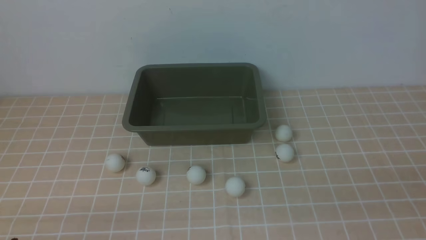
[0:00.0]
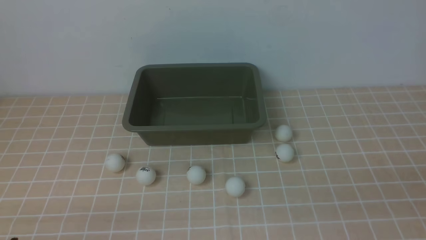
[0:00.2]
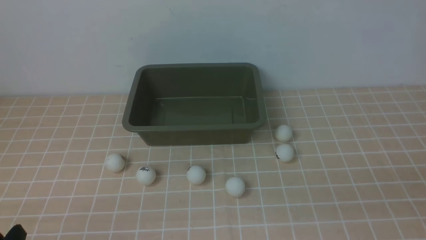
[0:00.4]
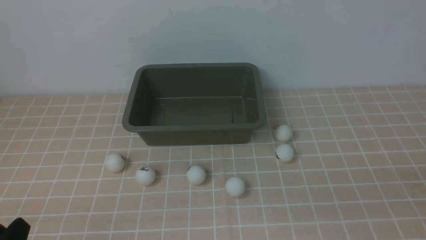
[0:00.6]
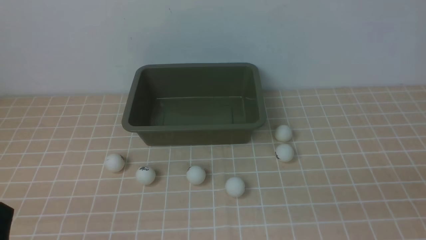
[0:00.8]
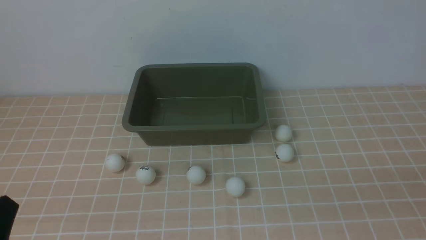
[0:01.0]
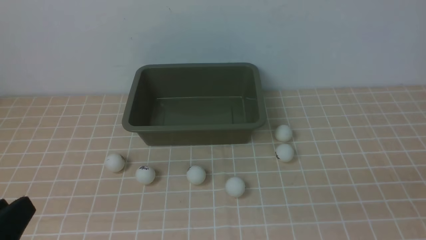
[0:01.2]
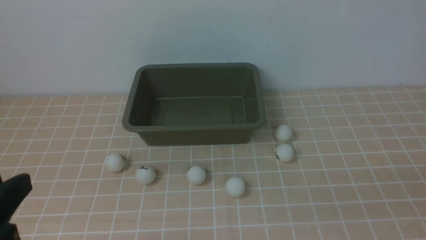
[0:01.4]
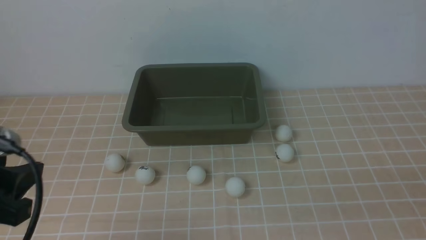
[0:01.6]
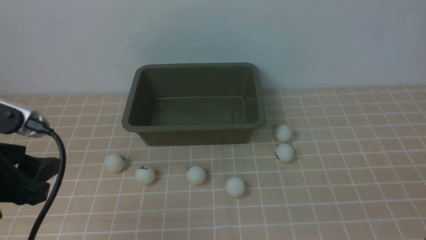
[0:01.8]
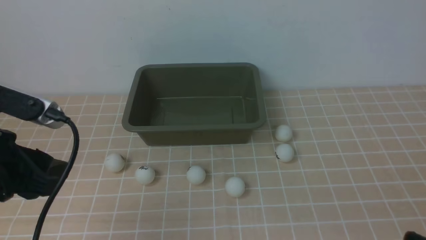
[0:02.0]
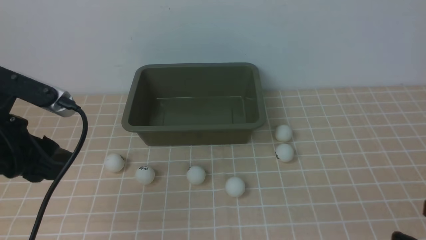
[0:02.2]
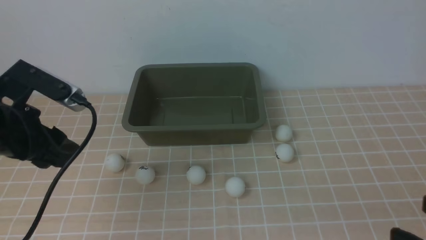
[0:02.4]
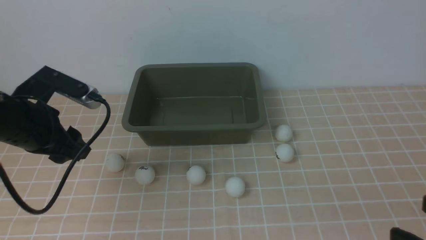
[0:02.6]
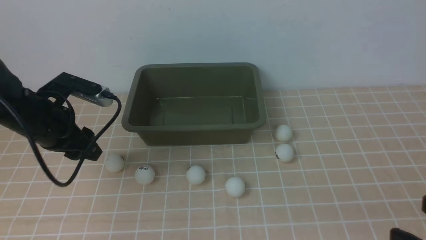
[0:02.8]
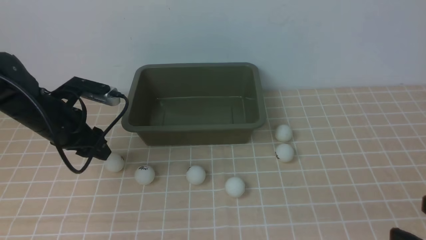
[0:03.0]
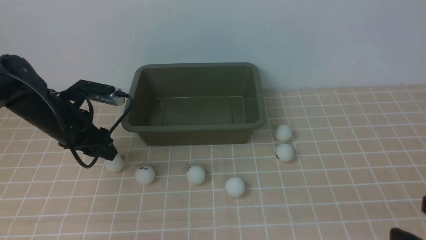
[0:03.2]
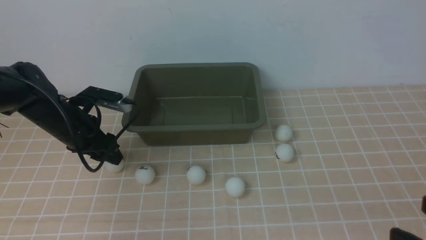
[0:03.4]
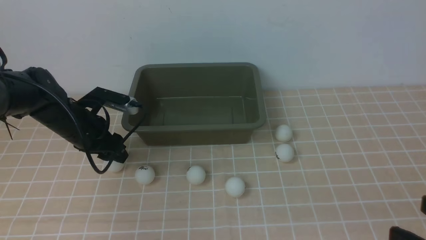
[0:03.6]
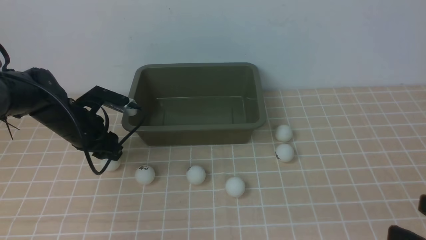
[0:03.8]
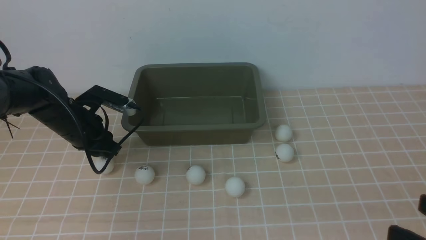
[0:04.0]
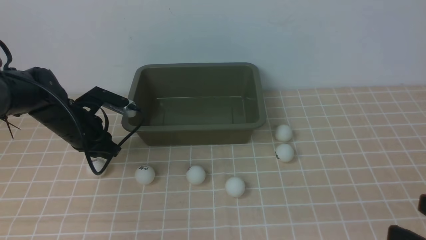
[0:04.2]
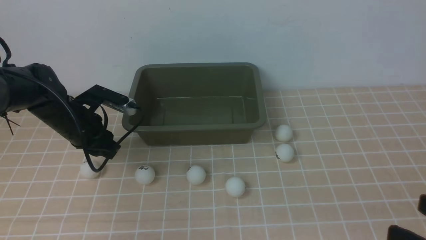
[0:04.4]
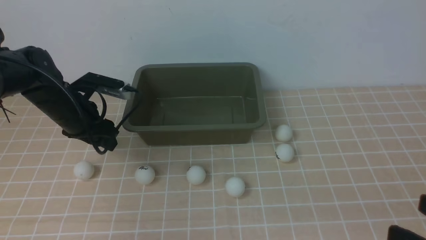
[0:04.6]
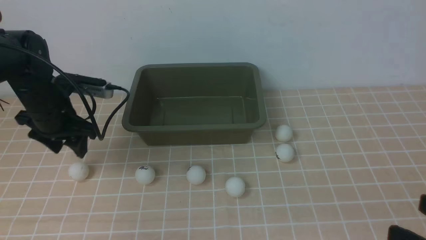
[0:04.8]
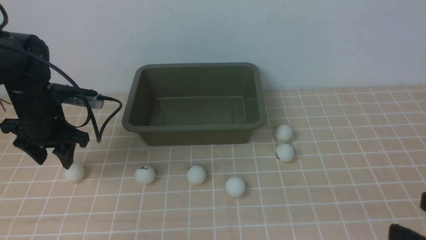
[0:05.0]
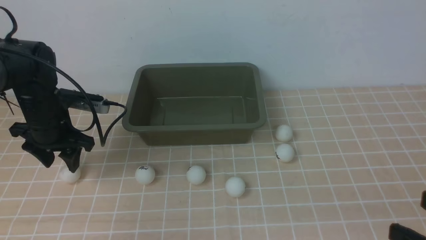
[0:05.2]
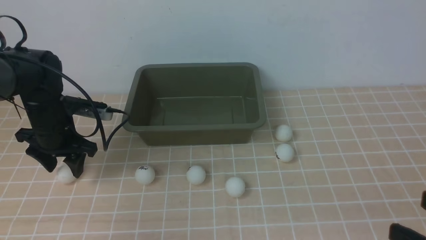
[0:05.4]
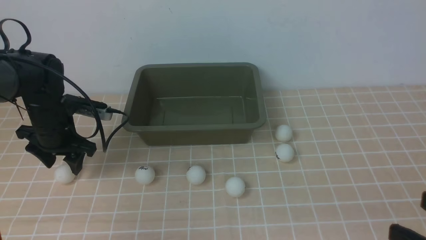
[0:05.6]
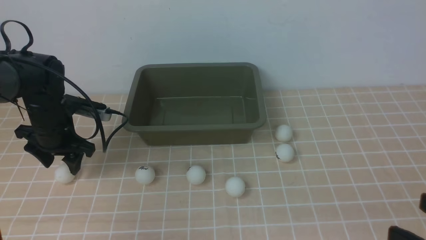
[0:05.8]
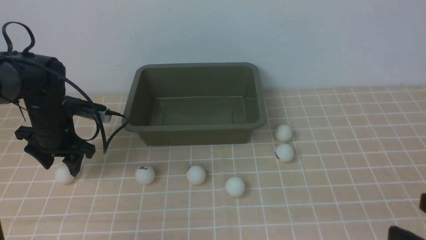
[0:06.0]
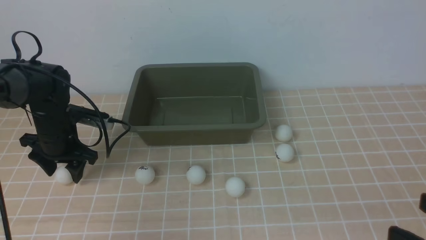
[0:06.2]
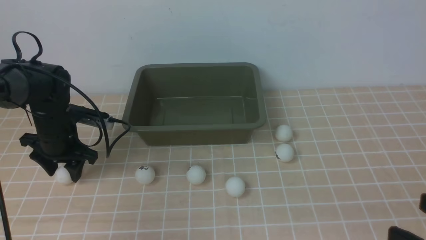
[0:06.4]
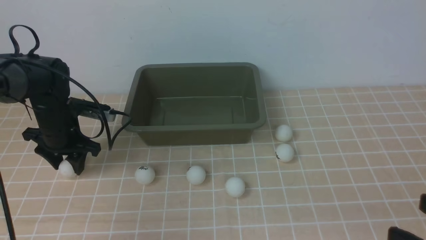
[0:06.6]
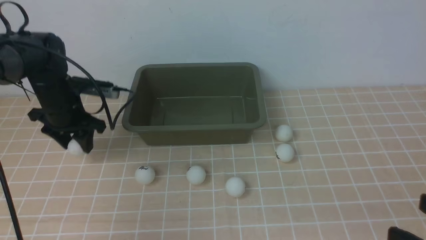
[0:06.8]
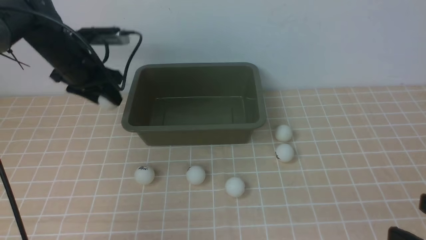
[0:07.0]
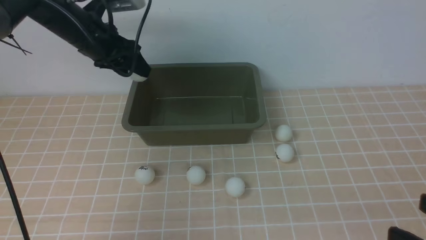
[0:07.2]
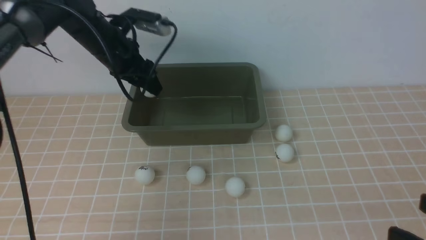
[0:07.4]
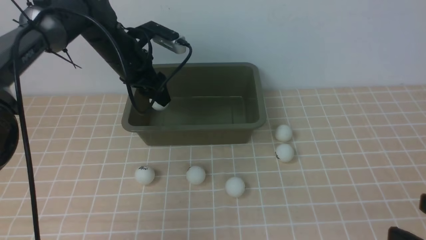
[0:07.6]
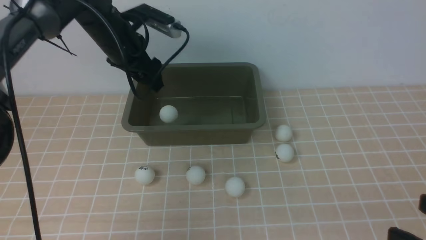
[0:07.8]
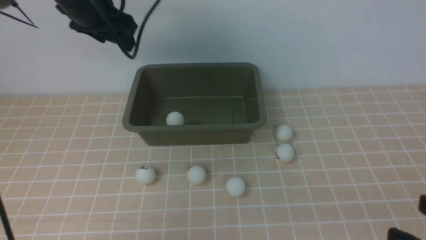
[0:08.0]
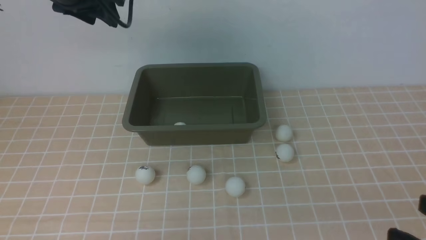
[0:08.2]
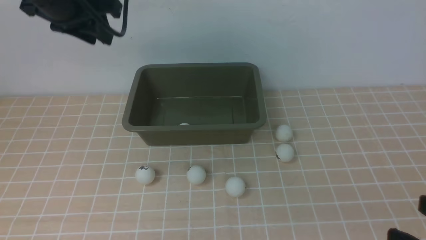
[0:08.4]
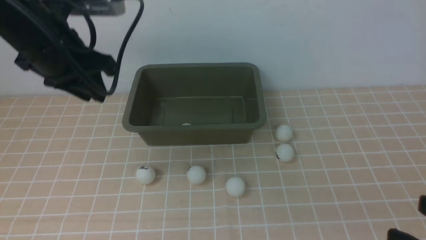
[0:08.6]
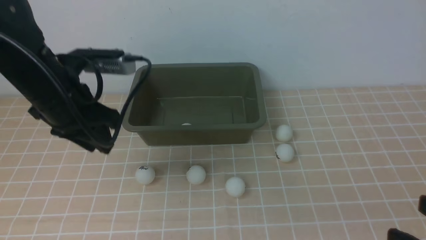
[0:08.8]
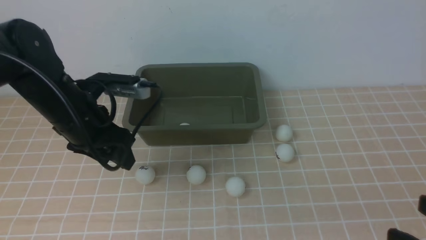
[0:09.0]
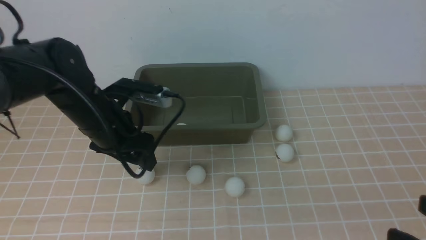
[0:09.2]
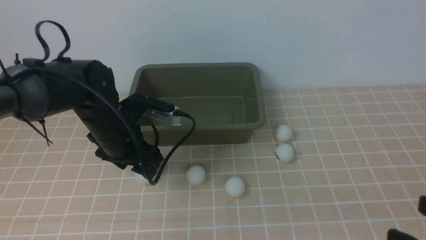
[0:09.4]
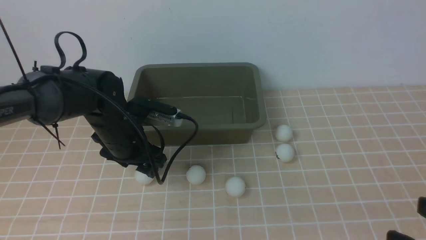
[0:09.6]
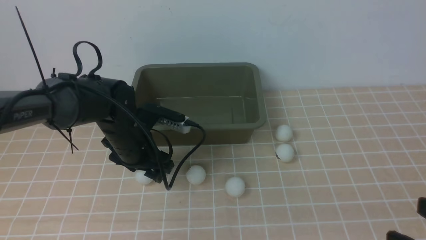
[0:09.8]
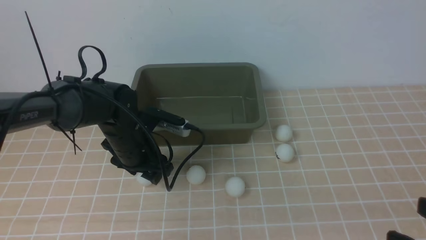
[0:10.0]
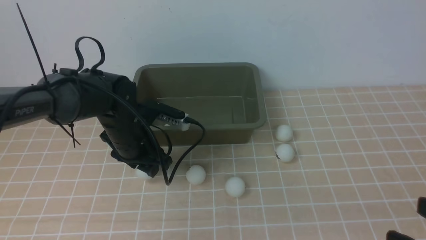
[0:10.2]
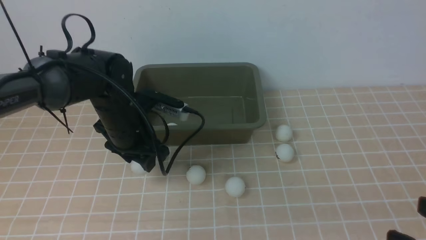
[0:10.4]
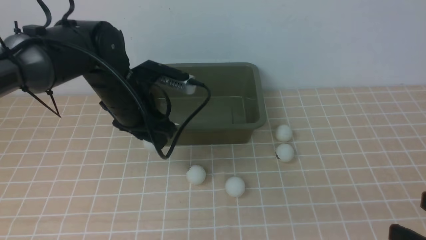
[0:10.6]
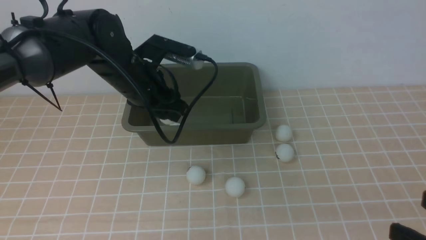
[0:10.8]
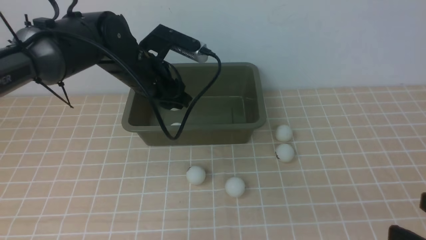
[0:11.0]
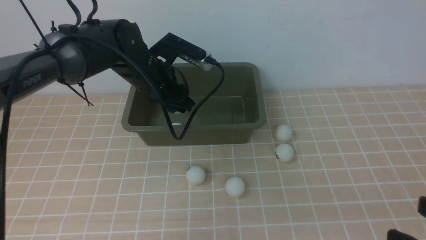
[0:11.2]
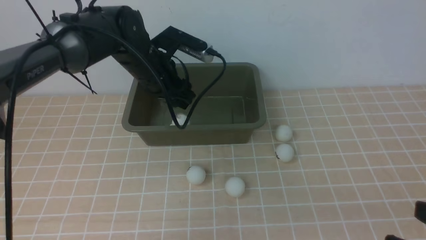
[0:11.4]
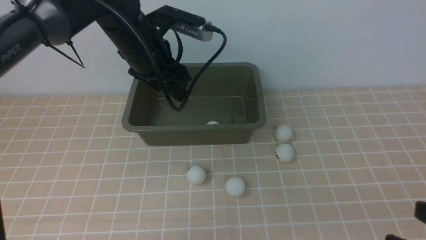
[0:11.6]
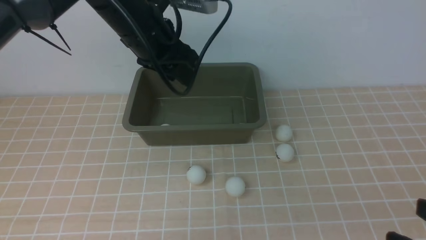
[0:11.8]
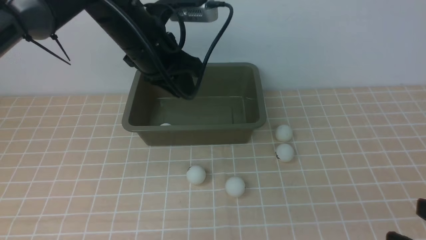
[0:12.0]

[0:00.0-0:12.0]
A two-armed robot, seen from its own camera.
Step, 0:00.0 to 0:06.8: use the left arm to clamp the table tennis ball closest to it.
Step, 0:07.0 to 0:07.8: use the left arm to put the table tennis ball into the box.
Step, 0:08.2 to 0:10.4: use the left arm to clamp the table tennis ball closest to it.
Step, 0:10.6 to 0:11.6: use the left arm to put the table tennis ball into the box.
0:00.0 to 0:01.6: The left gripper shifts roughly 15 cm upward and forward.
0:01.6 to 0:03.0: The left gripper is displaced forward and downward by some 25 cm.
0:03.0 to 0:04.4: The grippers stay close to where they were, moving slightly.
0:04.4 to 0:06.0: The left gripper opens.
0:06.0 to 0:07.6: The left gripper goes about 20 cm upward, to the right and forward.
0:07.6 to 0:09.0: The left gripper heads backward, covering roughly 15 cm, and closes, then reopens.
0:09.0 to 0:10.4: The left gripper ends up about 10 cm from where it was.
0:10.4 to 0:12.0: The left gripper heads upward, covering some 10 cm.

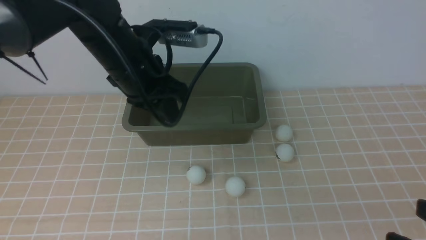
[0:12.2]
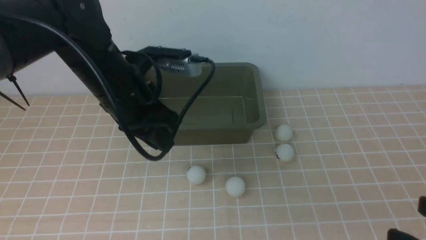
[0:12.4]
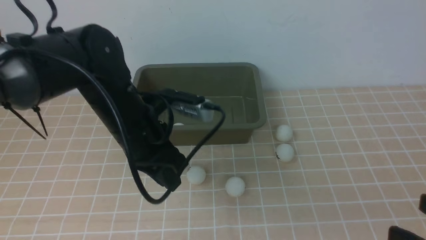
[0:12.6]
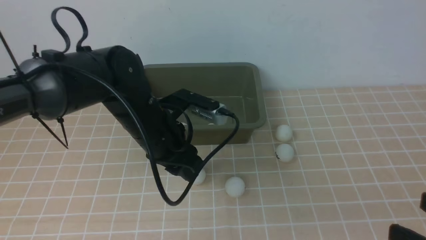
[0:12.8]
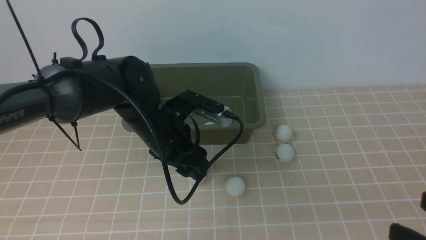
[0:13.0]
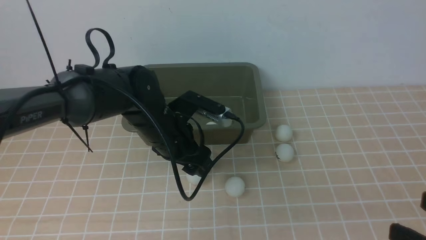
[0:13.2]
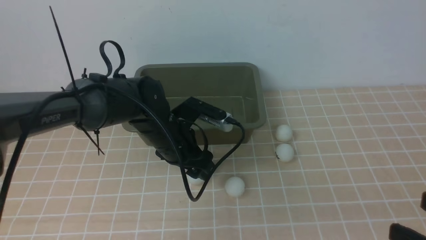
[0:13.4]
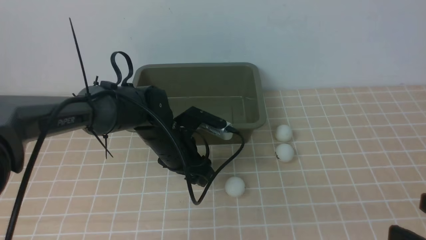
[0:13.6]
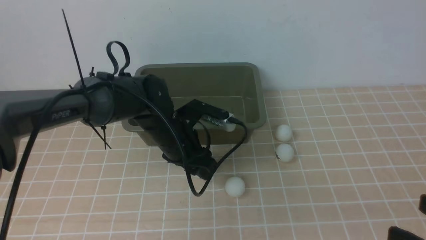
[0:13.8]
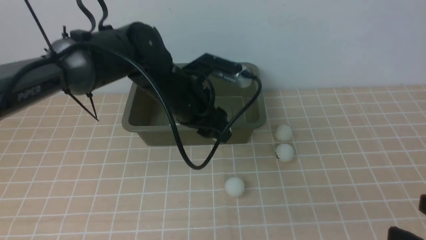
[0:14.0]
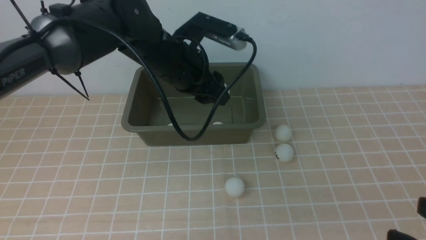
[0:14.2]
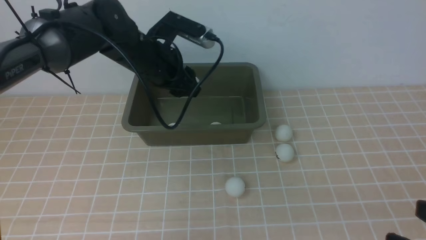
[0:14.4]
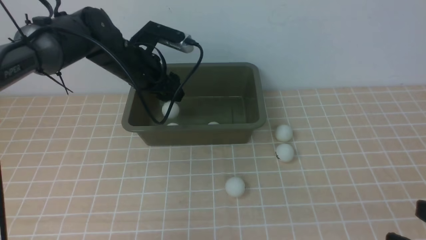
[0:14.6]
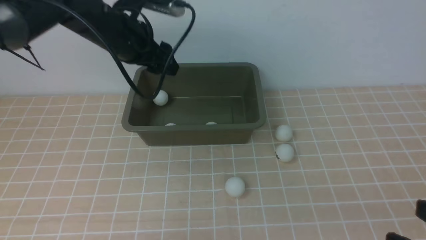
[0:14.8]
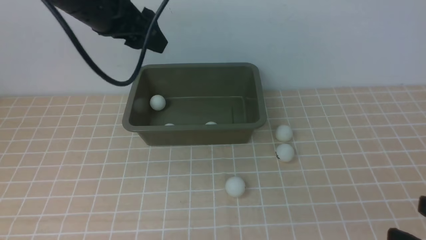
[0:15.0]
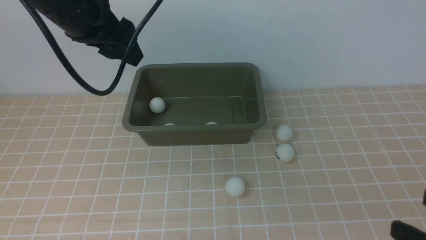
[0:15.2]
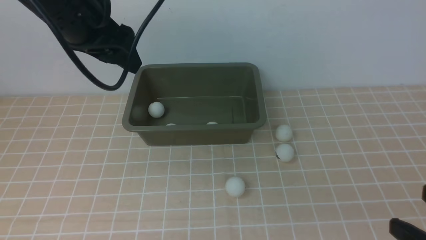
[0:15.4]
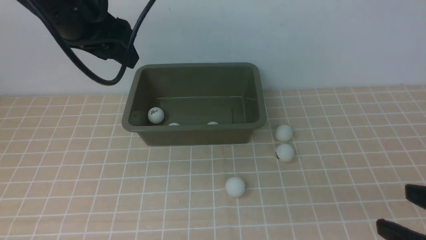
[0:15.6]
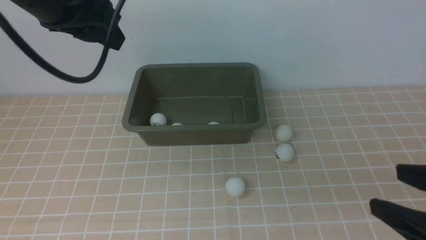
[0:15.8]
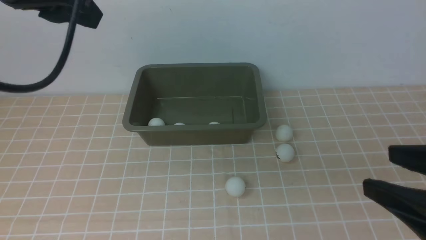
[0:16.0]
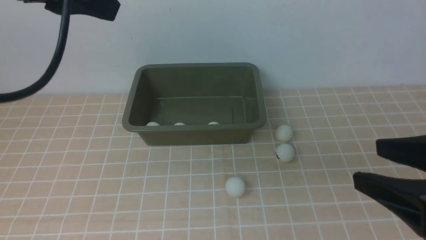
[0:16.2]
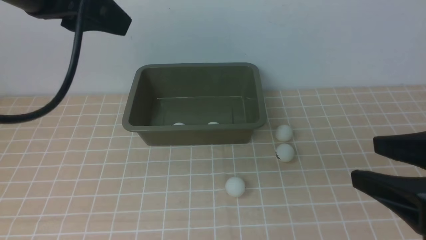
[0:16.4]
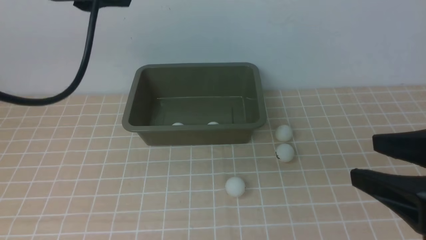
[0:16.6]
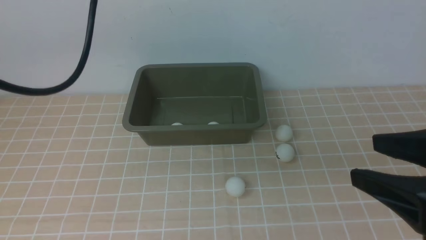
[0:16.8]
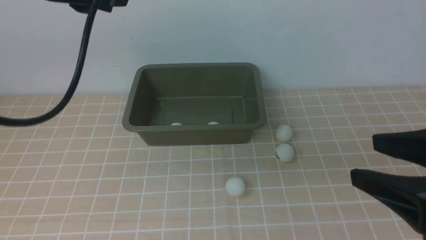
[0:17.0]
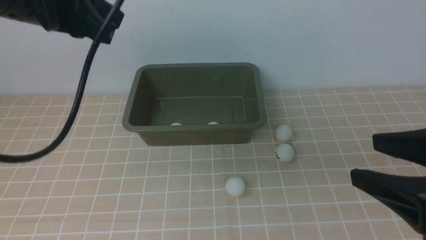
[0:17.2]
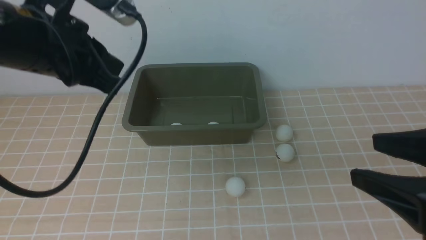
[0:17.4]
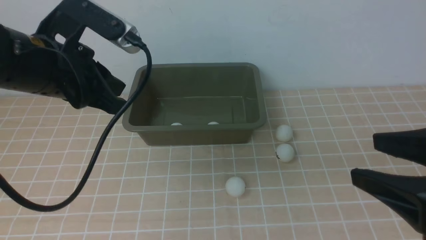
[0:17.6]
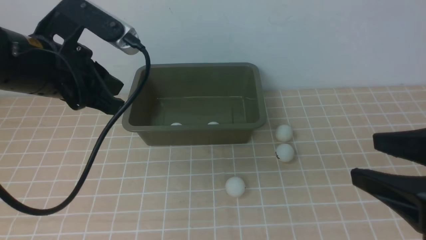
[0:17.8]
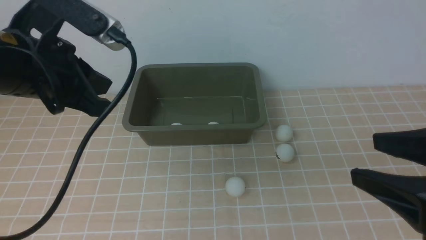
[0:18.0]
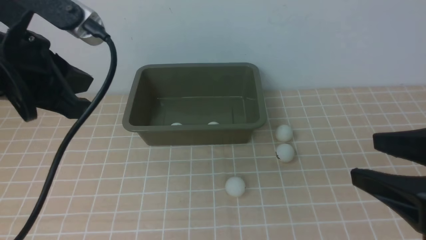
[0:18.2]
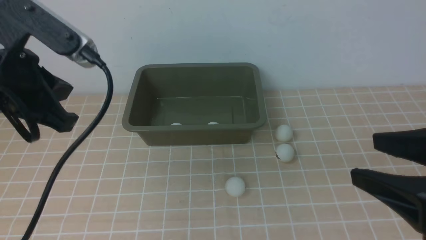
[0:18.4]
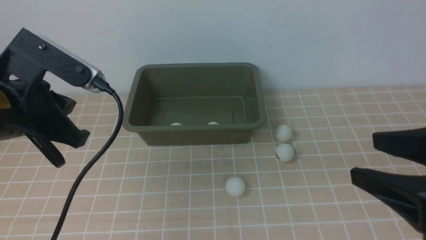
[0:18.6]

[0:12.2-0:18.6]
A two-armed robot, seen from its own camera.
Step, 0:12.2 to 0:14.0: use the left arm to clamp the table tennis ball closest to it.
Step, 0:14.2 to 0:14.8: use the left arm to put the table tennis ball into the box.
0:12.2 to 0:13.8: The left gripper moves downward, approximately 10 cm, and opens up.
0:13.8 to 0:15.4: The left gripper is displaced upward and to the left by about 25 cm.
0:15.4 to 0:17.0: The left gripper heads backward and upward, covering some 10 cm, and closes up; the right gripper heads forward, covering some 5 cm.
0:17.0 to 0:18.6: The left gripper heads downward, covering approximately 10 cm.
